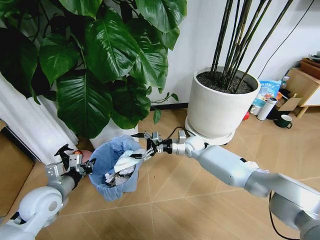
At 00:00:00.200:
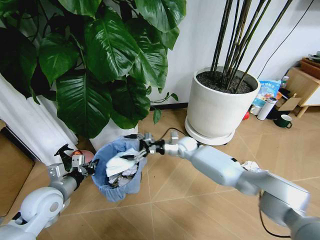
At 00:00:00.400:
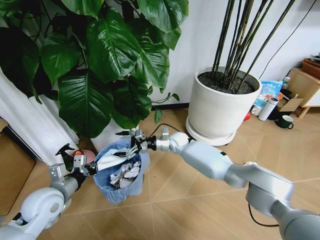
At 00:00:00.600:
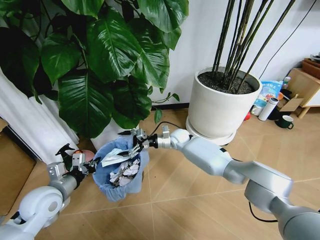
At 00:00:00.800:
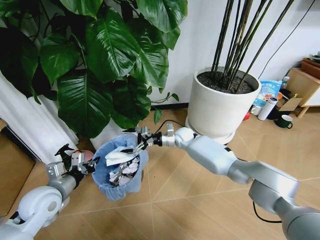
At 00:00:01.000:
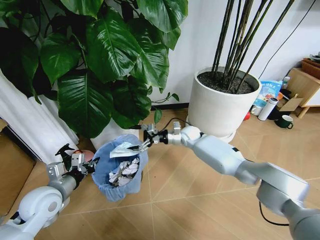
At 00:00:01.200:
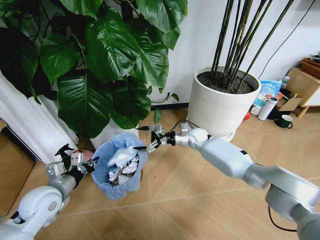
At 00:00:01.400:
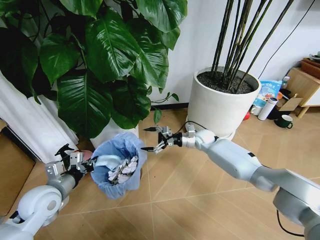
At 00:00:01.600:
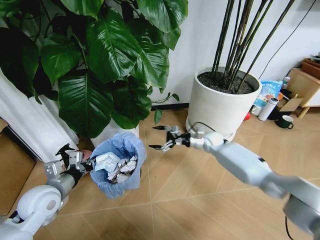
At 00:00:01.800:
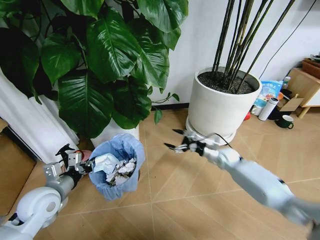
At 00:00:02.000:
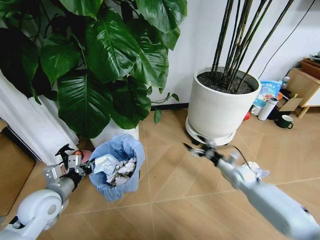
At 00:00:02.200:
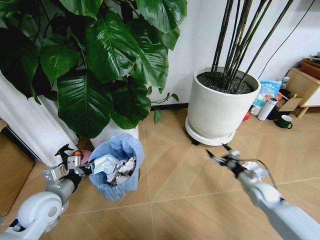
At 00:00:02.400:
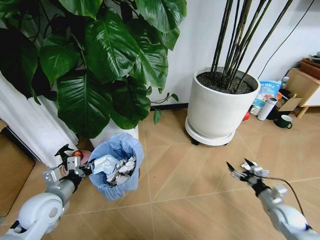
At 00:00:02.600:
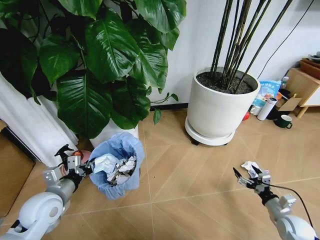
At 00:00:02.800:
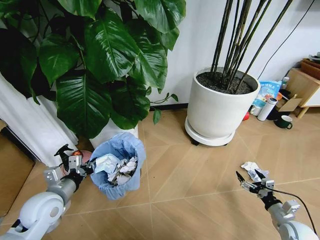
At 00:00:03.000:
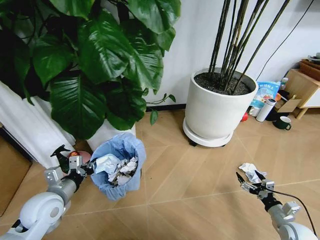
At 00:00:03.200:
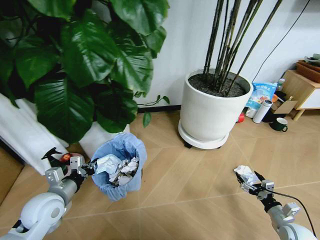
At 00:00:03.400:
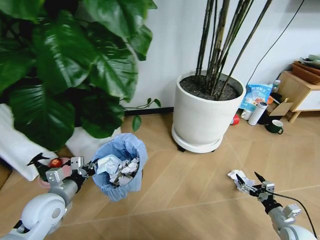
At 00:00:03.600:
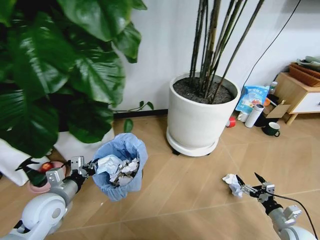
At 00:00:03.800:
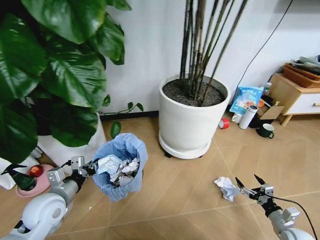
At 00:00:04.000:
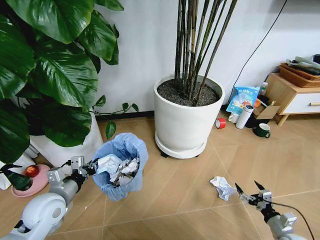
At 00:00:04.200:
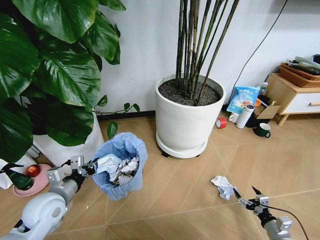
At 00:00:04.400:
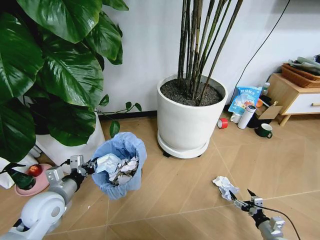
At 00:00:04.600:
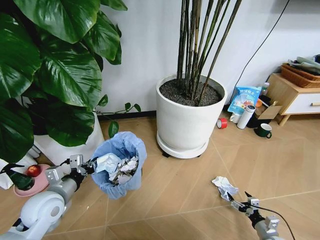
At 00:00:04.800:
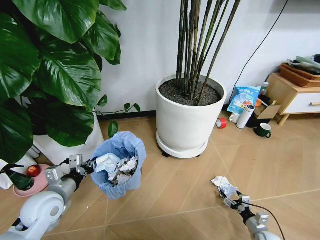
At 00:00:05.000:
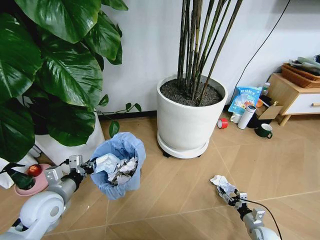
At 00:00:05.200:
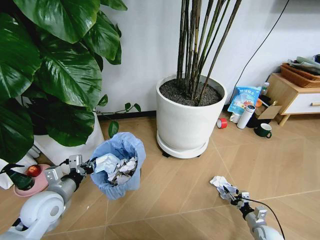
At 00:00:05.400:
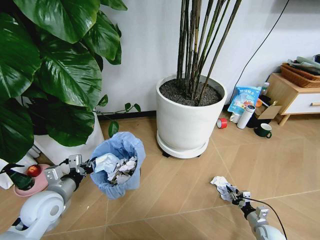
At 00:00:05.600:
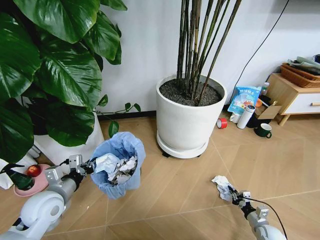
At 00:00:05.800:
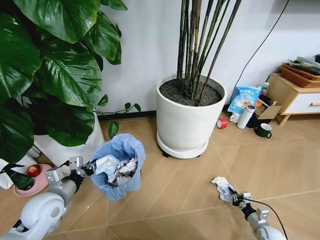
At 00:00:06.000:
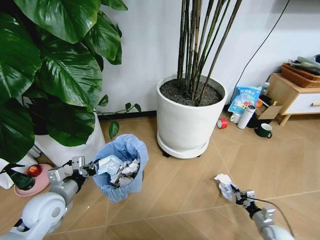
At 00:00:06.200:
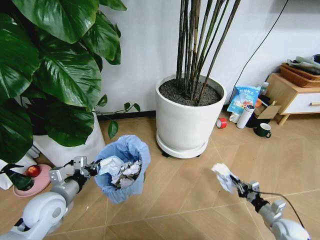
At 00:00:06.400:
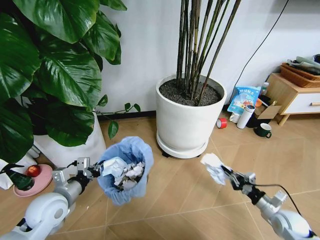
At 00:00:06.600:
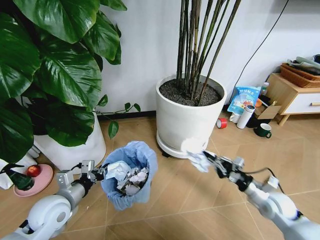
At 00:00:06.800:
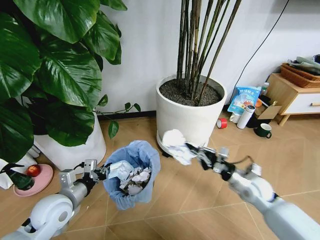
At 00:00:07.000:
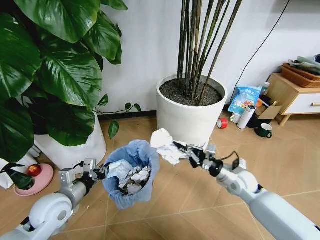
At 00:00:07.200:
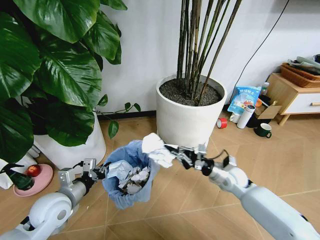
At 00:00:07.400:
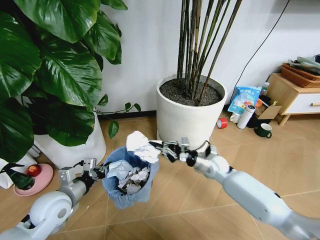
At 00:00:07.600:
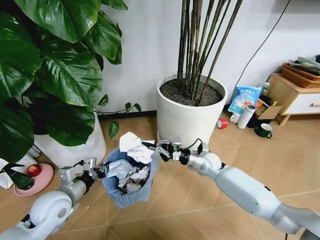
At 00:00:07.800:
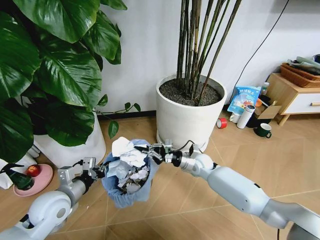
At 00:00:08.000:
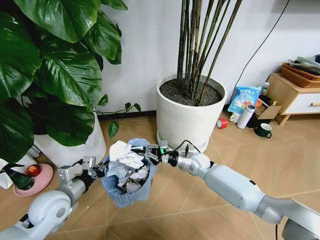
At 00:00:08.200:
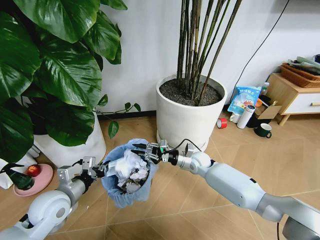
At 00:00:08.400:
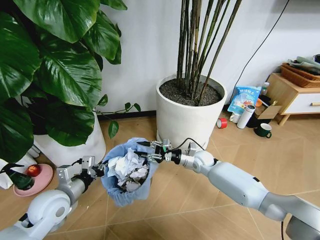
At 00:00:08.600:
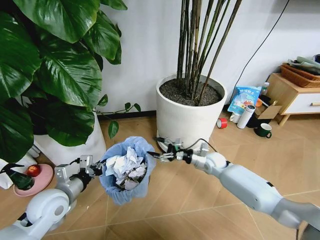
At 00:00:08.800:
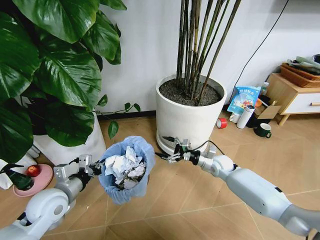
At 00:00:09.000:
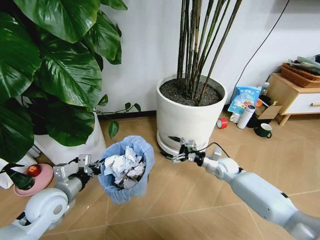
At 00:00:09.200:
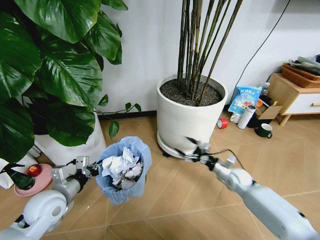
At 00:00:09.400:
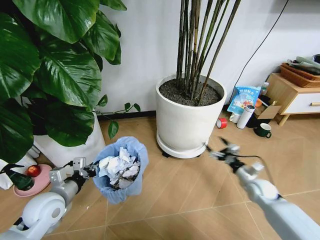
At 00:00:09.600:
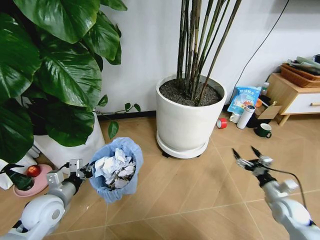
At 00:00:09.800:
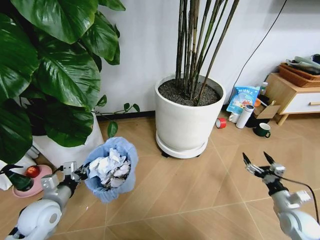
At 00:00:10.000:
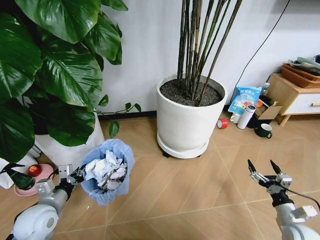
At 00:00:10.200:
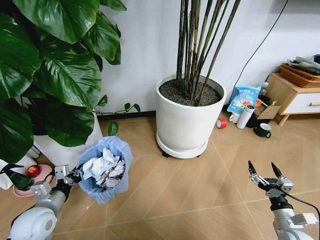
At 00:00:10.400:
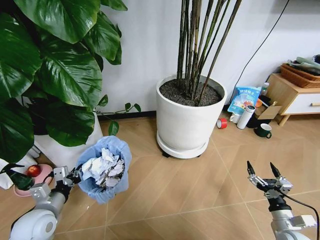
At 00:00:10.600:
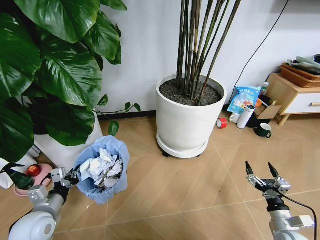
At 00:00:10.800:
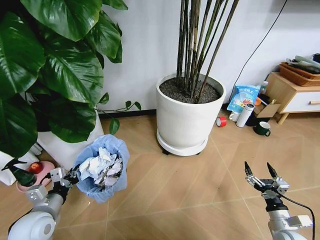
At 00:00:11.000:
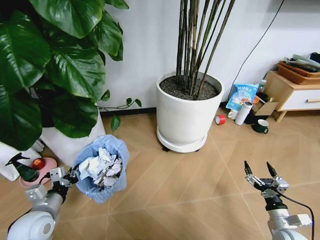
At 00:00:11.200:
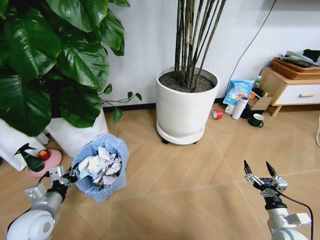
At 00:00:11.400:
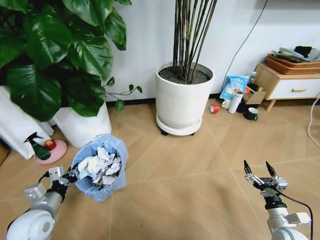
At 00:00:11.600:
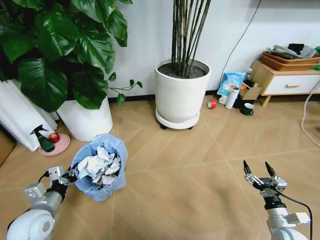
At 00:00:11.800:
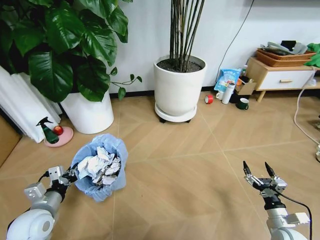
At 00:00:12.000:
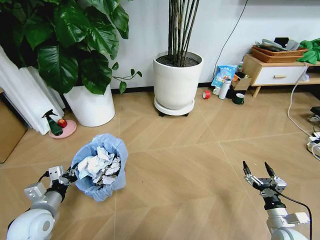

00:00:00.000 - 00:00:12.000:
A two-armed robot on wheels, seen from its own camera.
Task of the whole recording: Pick up the trash bin and place the garbage on the floor into it.
00:00:00.000 - 00:00:01.600: The right gripper moves to the right, approximately 10 cm.
00:00:01.600 - 00:00:03.000: The right gripper shifts about 40 cm backward and to the right.
00:00:03.000 - 00:00:04.400: The right gripper moves downward, roughly 5 cm.
00:00:04.400 - 00:00:06.000: The right gripper ends up some 5 cm from where it was, and closes.
00:00:06.000 - 00:00:07.600: The right gripper travels to the left, forward and upward by roughly 40 cm.
00:00:07.600 - 00:00:09.000: The right gripper moves to the right, some 10 cm, and opens its fingers.
00:00:09.000 - 00:00:10.400: The left gripper shifts by about 5 cm. Meanwhile the right gripper goes some 30 cm backward and to the right.

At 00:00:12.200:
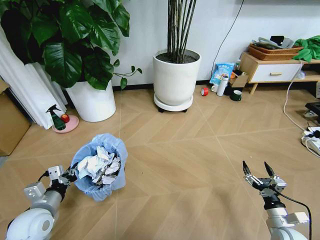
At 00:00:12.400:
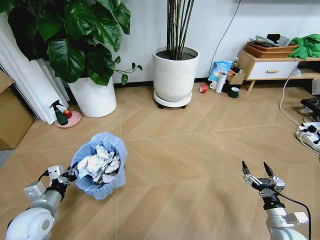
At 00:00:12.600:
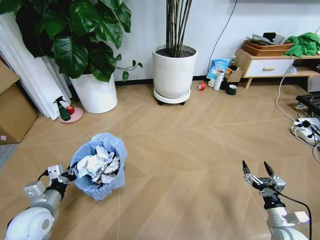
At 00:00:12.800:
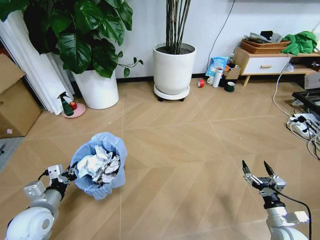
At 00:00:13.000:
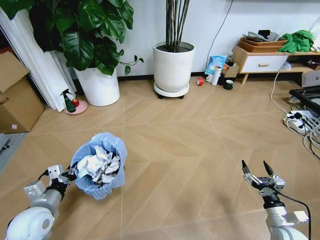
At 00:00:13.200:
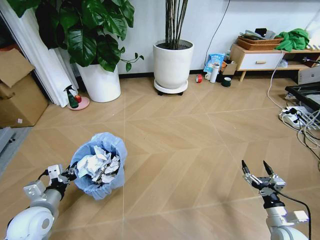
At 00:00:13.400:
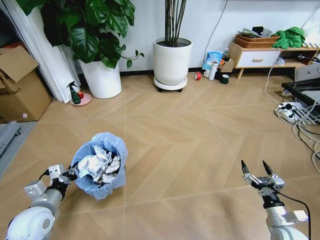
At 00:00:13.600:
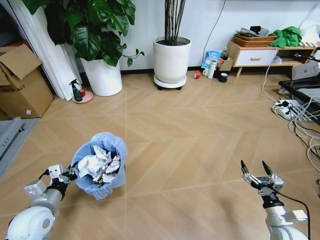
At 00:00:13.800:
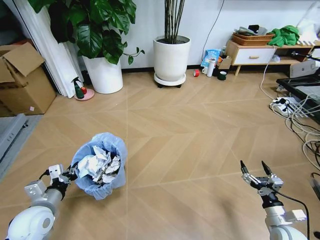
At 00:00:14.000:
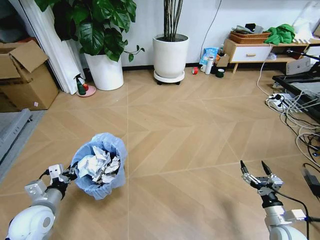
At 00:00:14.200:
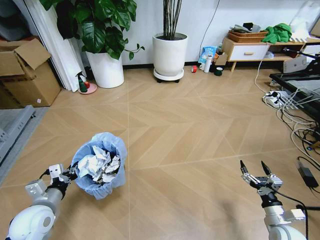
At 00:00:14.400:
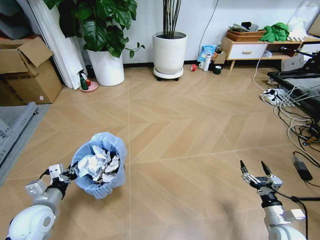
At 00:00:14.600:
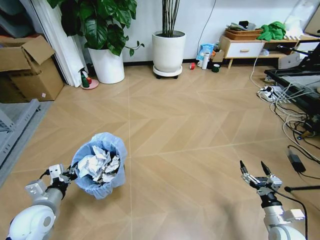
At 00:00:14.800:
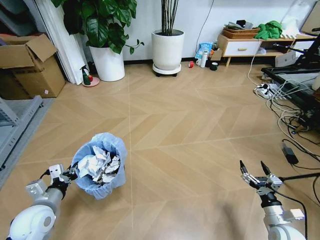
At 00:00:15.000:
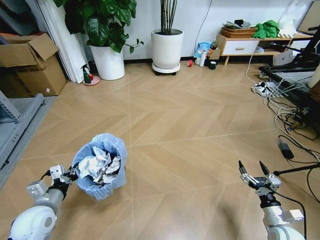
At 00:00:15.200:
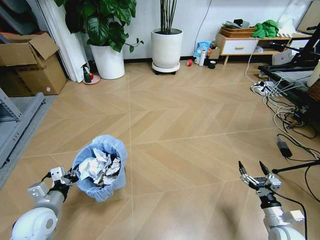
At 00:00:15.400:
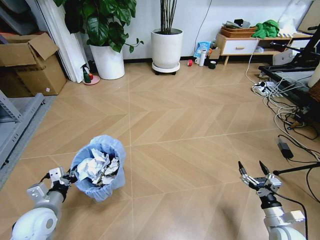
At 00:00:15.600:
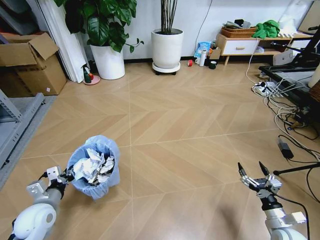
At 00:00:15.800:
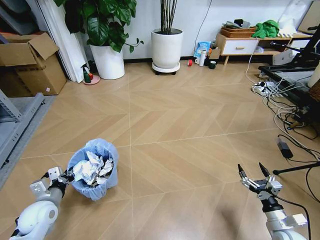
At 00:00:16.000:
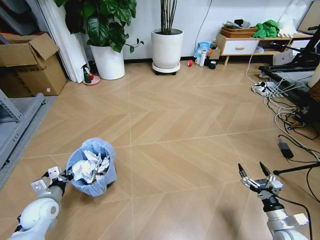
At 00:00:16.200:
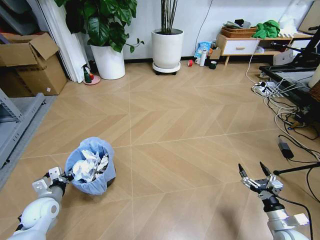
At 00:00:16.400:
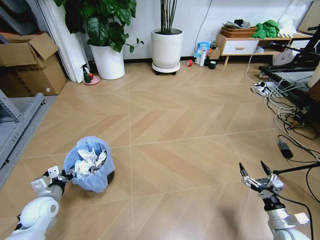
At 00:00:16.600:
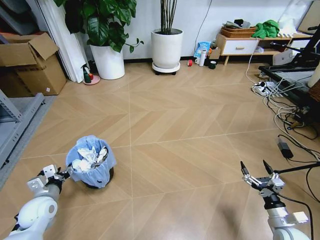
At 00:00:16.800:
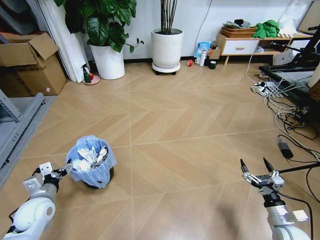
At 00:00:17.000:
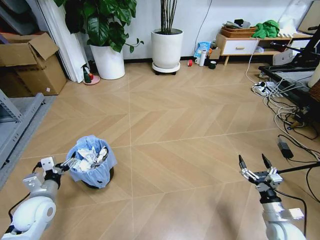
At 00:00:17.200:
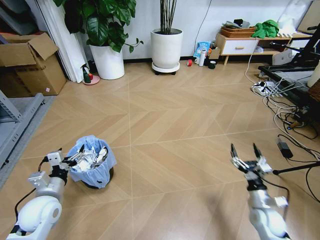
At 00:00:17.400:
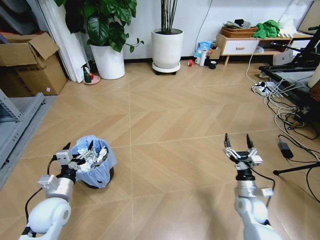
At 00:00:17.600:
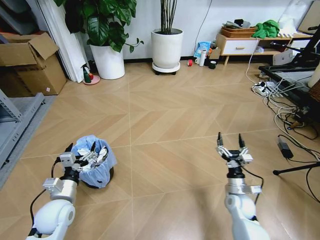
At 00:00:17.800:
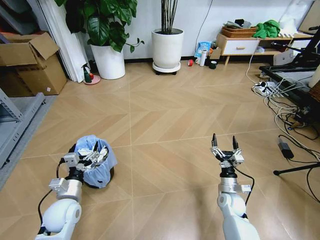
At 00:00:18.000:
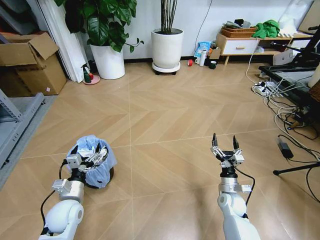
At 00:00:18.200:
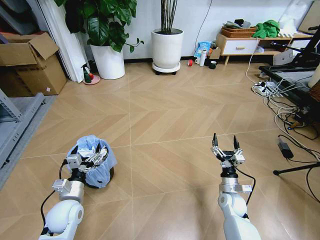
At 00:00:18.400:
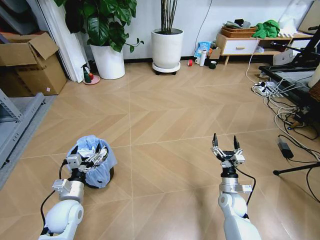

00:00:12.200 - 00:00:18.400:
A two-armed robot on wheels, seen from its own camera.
Task of the whole recording: Pick up the trash bin and place the garbage on the floor into it.
00:00:15.400 - 00:00:16.800: The left gripper moves roughly 5 cm, and opens.
00:00:16.800 - 00:00:18.400: The left gripper heads to the right, covering some 10 cm. The right gripper goes roughly 20 cm to the left and forward.
